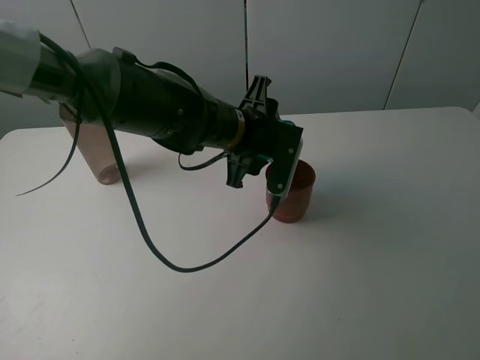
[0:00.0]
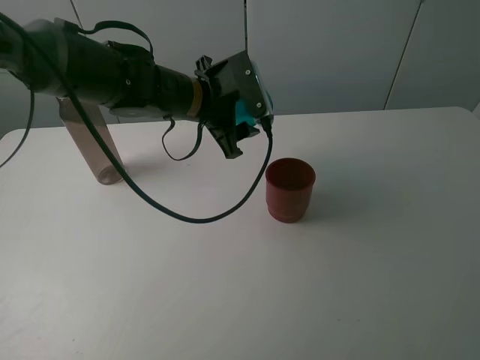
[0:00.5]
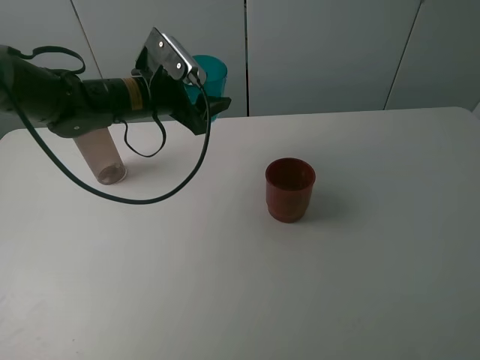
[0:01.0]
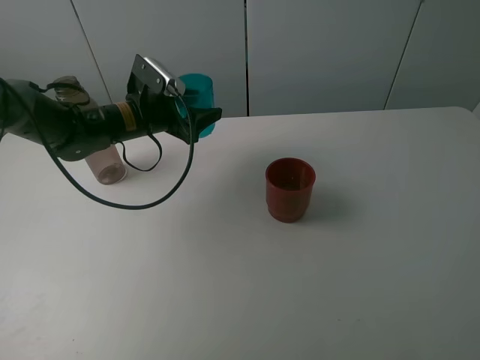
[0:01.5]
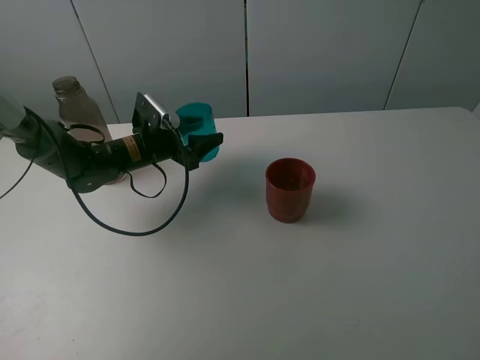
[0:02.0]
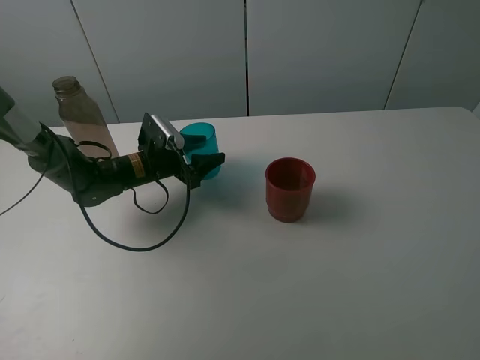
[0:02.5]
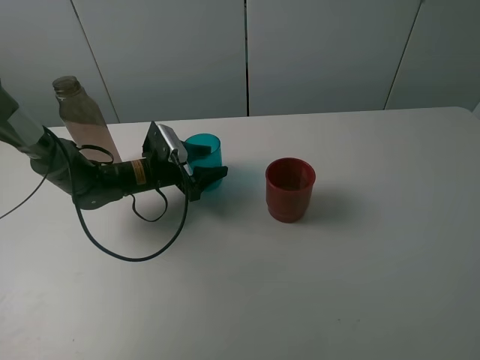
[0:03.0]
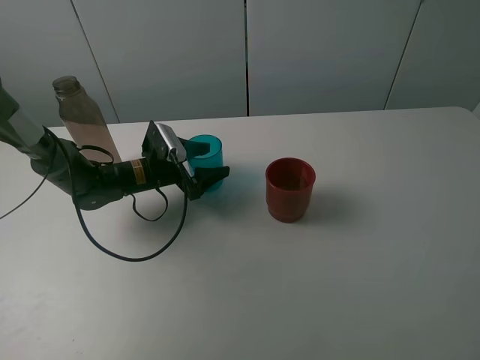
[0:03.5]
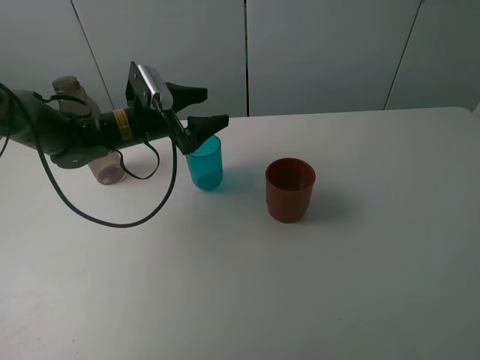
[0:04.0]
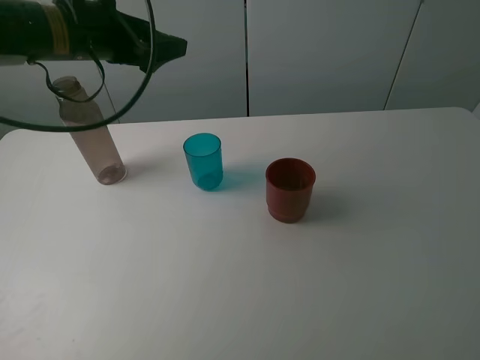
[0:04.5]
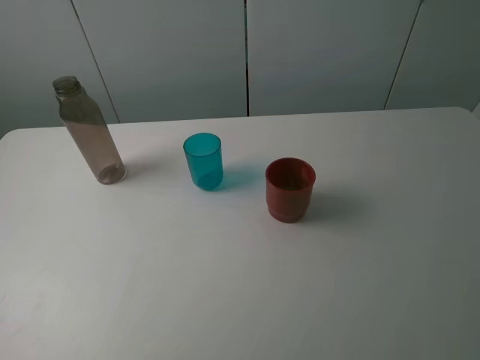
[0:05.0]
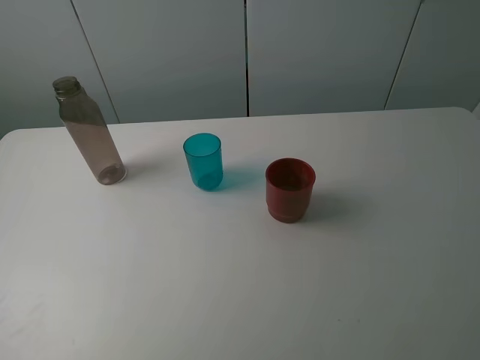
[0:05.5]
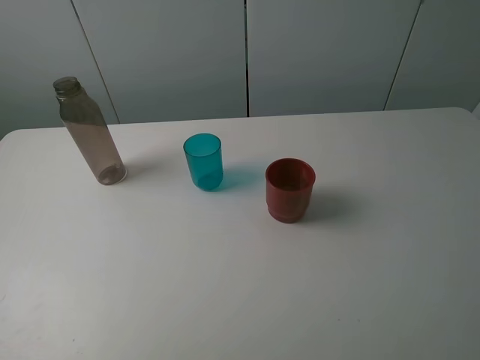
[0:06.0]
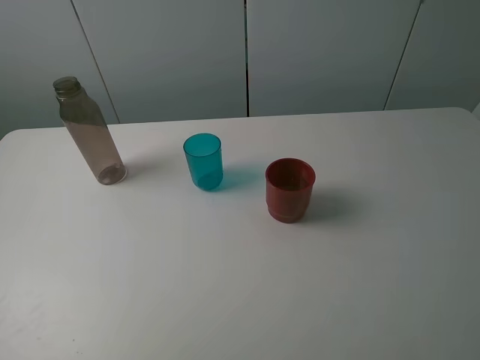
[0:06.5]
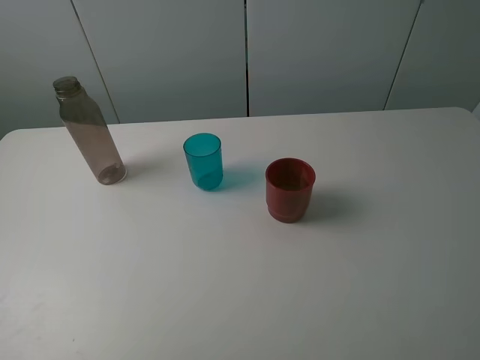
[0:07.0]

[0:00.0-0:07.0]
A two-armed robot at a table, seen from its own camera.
Task of the whole recording: pick up the bottle and pour water into the cup, then pick up the cup containing water and pour it into another cup.
0:00.0 to 0:02.0: The left gripper shifts roughly 20 cm to the left, downward and forward.
0:02.0 to 0:03.5: The left gripper opens its fingers.
0:03.5 to 0:05.0: The left gripper travels upward by approximately 35 cm.
